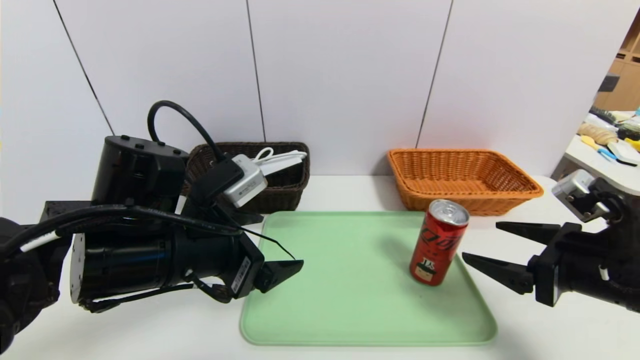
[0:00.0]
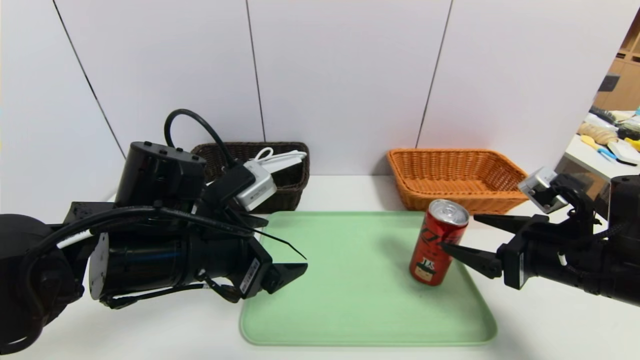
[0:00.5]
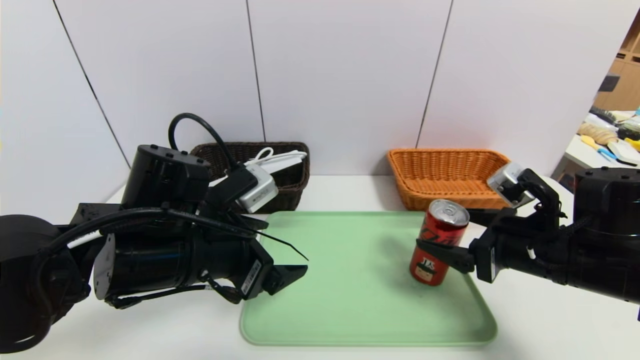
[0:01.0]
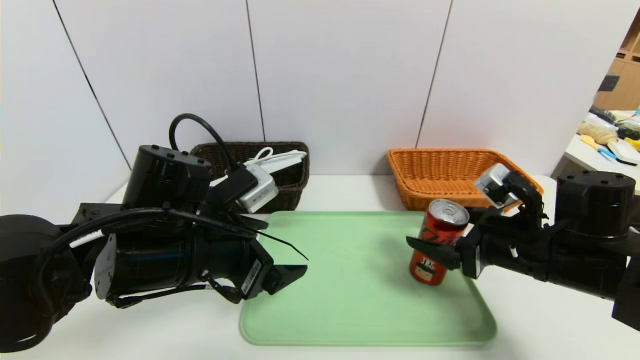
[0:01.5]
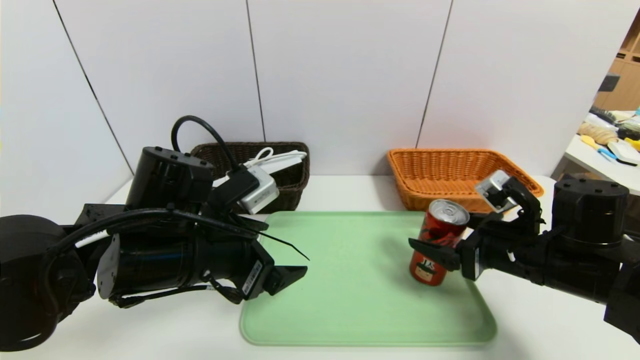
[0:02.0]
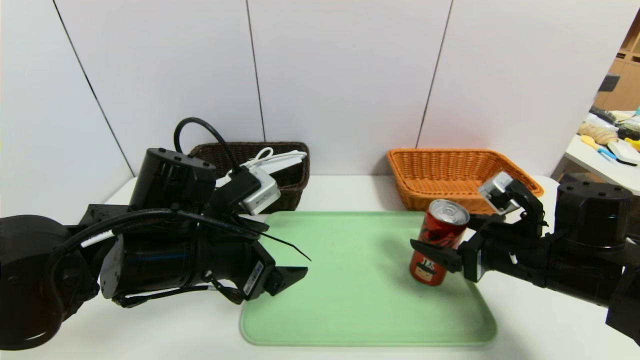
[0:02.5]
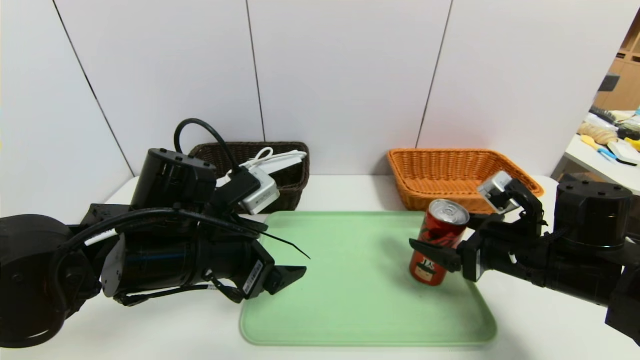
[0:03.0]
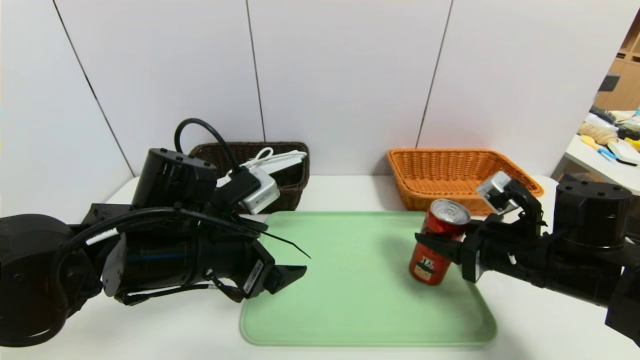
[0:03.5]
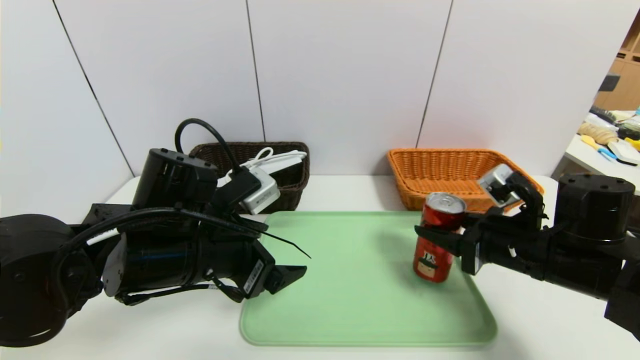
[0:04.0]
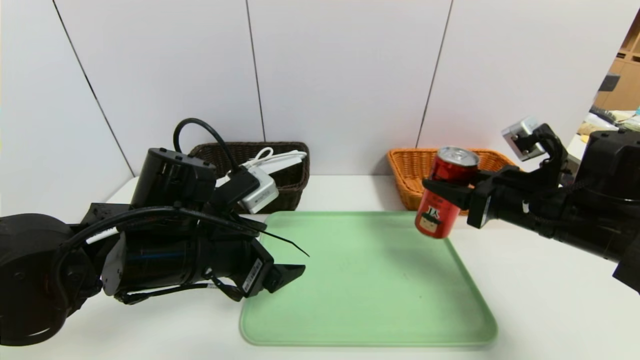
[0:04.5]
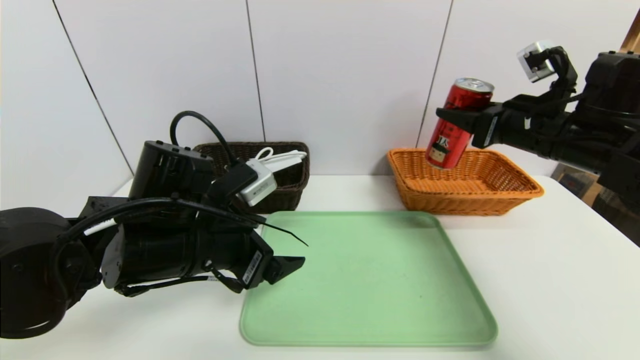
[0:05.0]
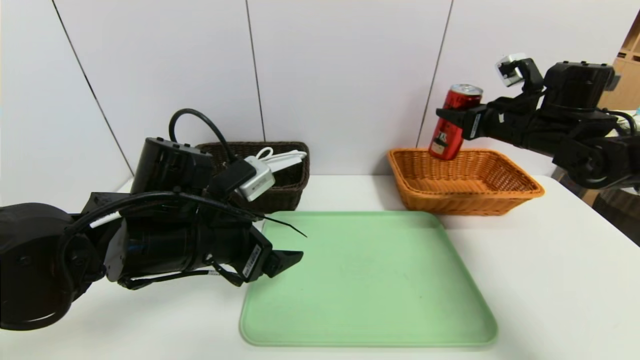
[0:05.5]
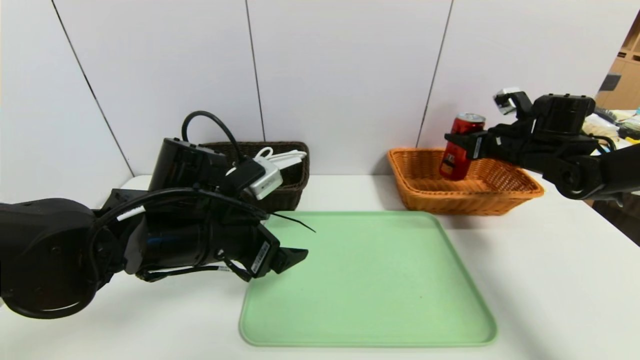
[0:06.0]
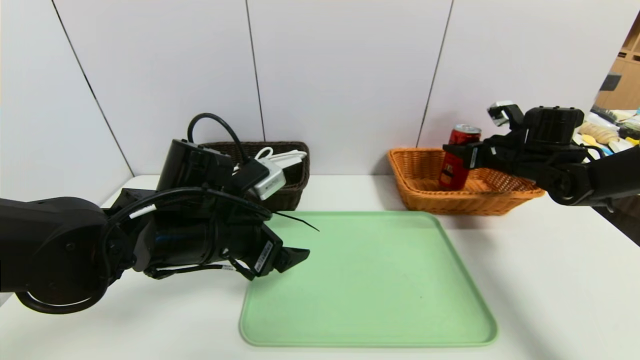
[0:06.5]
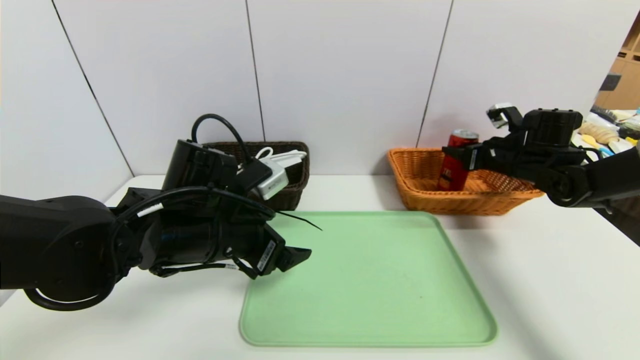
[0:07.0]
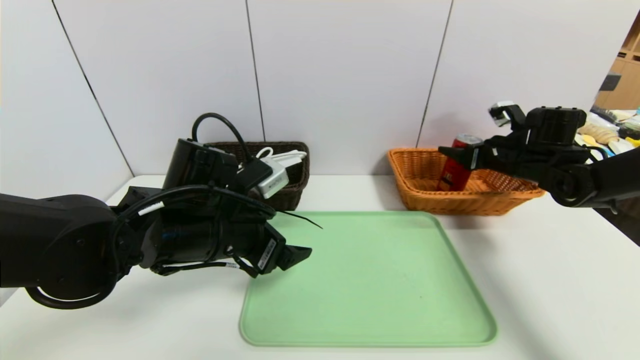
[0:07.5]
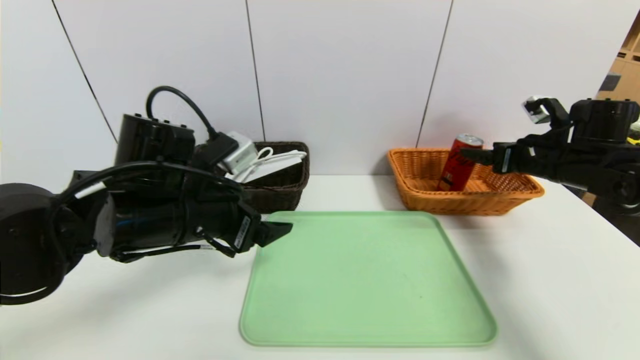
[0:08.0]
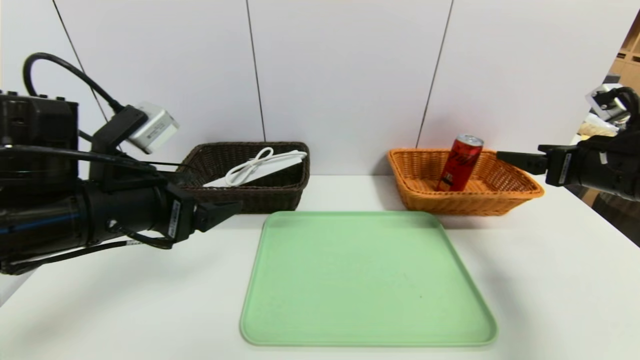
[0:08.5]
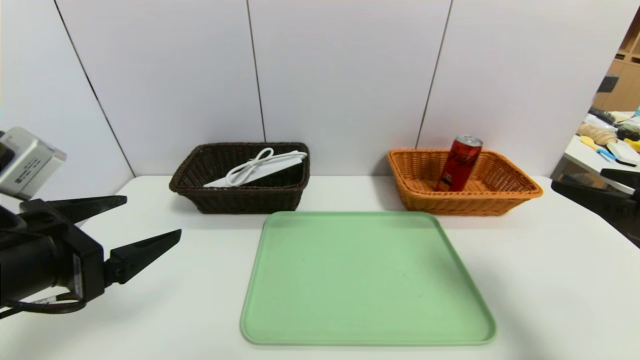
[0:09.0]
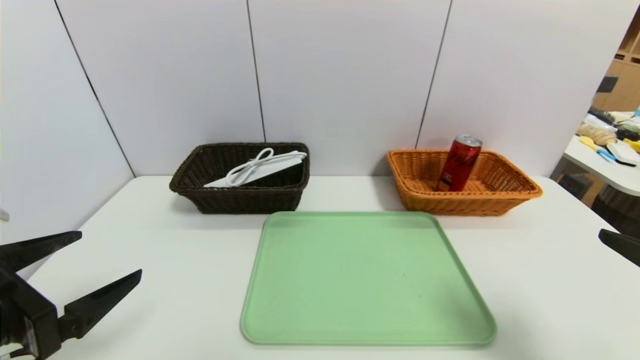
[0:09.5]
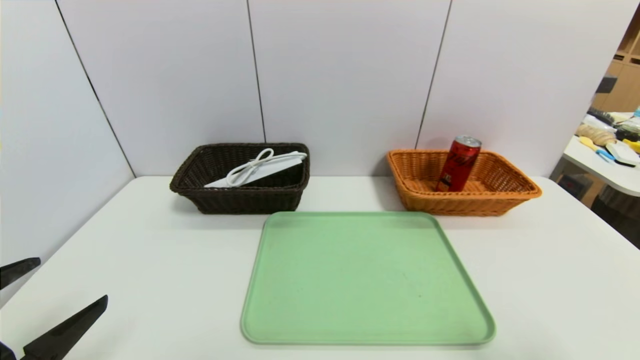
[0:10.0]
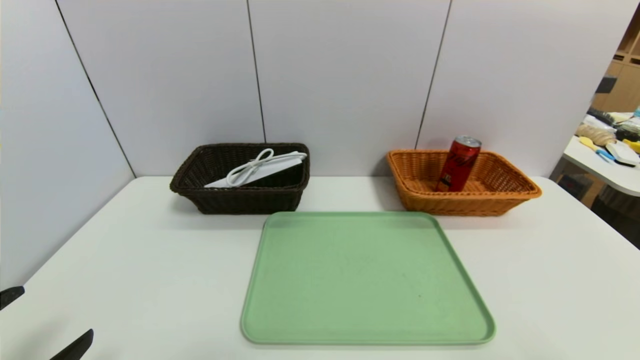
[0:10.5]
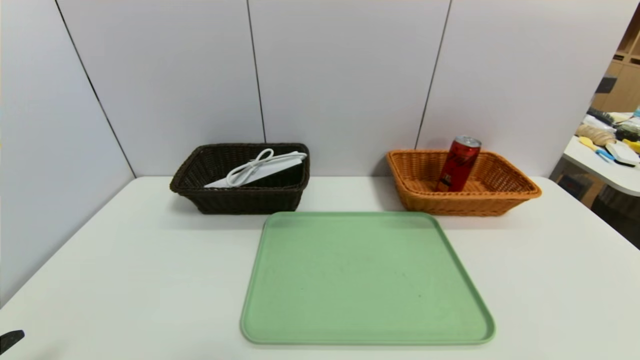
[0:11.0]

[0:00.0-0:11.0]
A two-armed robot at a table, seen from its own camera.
Task of the whole recording: place the food in the right basket with the right gripper, and place the non food items in the left basket with the left gripper.
Step, 0:00.0 to 0:07.5: Grasp the coke and put it in the right basket.
0:00.0 to 0:02.0: The right gripper heads forward, covering some 5 cm.
0:02.0 to 0:03.5: The right gripper closes its fingers.
0:03.5 to 0:05.5: The right gripper is displaced forward and upward by roughly 20 cm.
0:05.5 to 0:07.5: The right gripper is displaced downward by about 5 cm, and opens its fingers.
0:07.5 to 0:09.0: The right gripper moves backward, about 25 cm. The left gripper heads to the left, backward and upward, covering roughly 20 cm.
0:09.0 to 0:11.0: The right gripper heads backward, covering some 20 cm, while the left gripper heads backward and downward, covering approximately 15 cm.

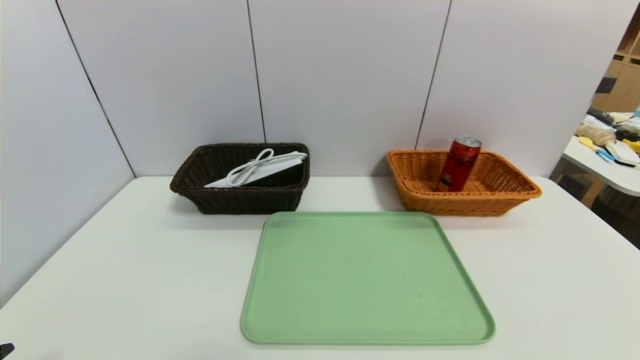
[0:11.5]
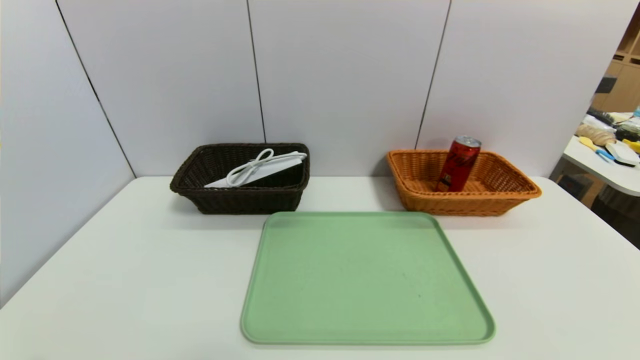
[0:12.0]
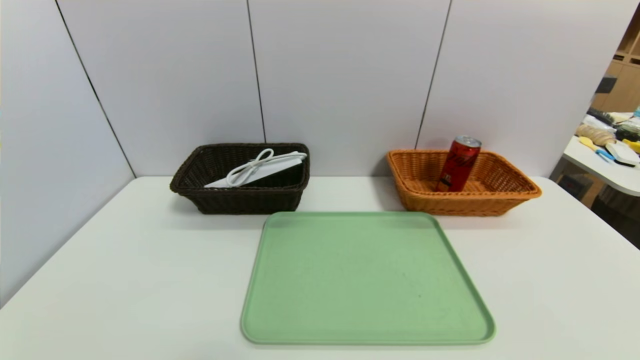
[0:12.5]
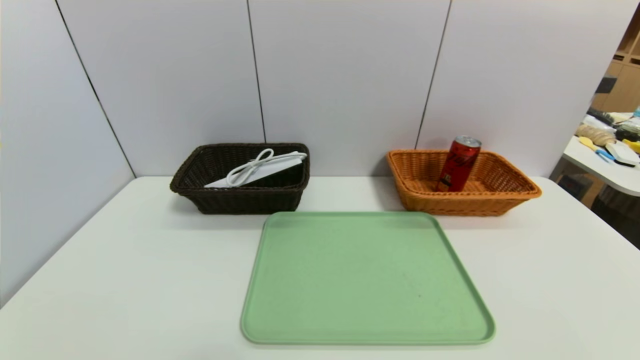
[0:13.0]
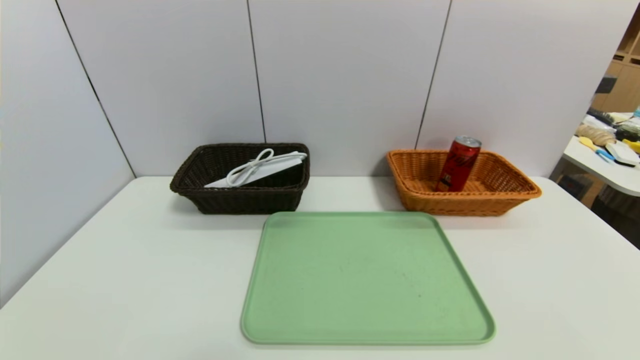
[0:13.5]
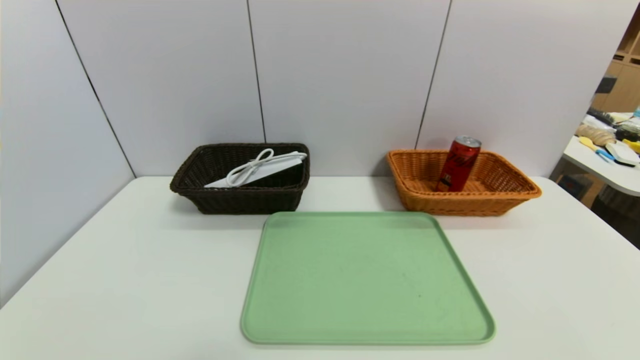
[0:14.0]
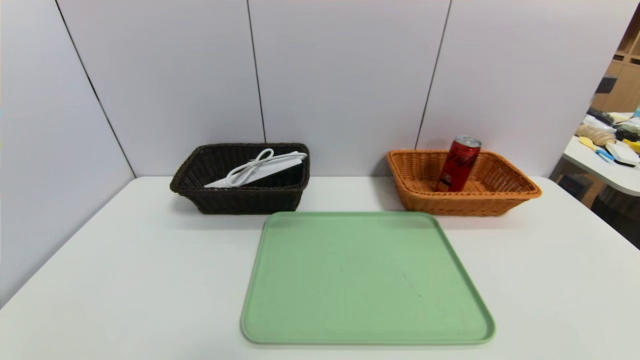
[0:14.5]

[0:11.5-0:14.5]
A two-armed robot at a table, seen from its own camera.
Task of the whole recording: place the food in the right basket with the right gripper, and place the non food items in the left basket with the left gripper.
0:13.0 to 0:14.5: Both grippers stay put.

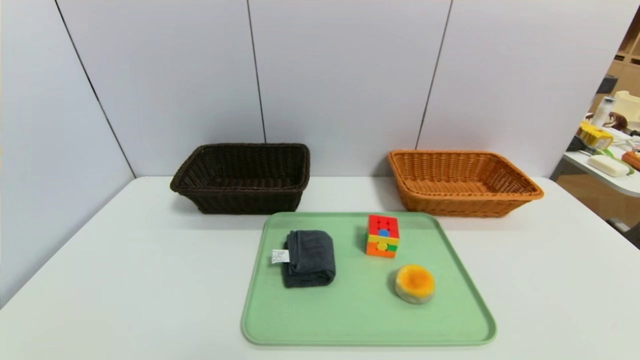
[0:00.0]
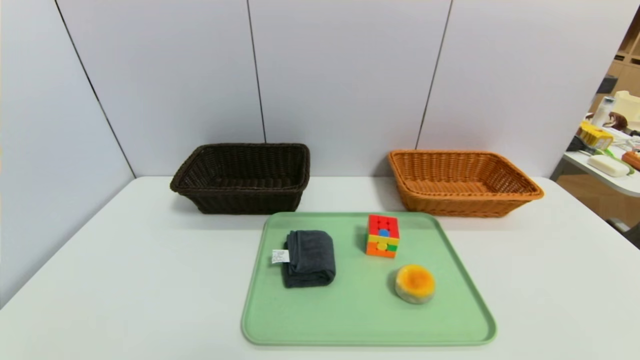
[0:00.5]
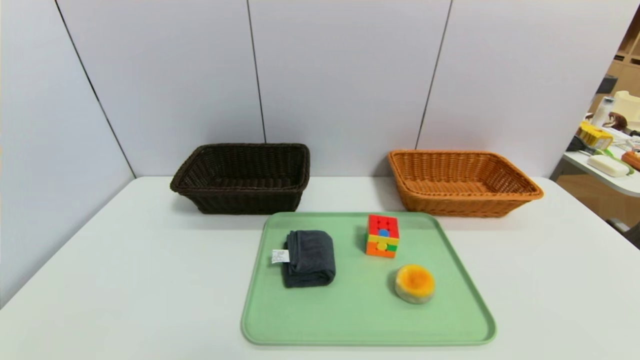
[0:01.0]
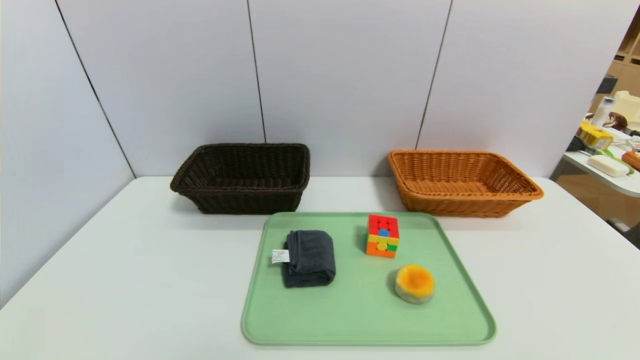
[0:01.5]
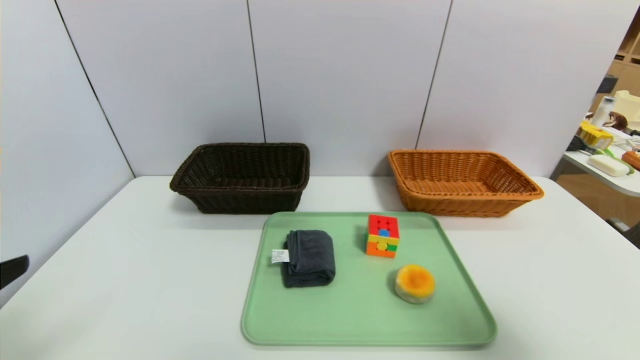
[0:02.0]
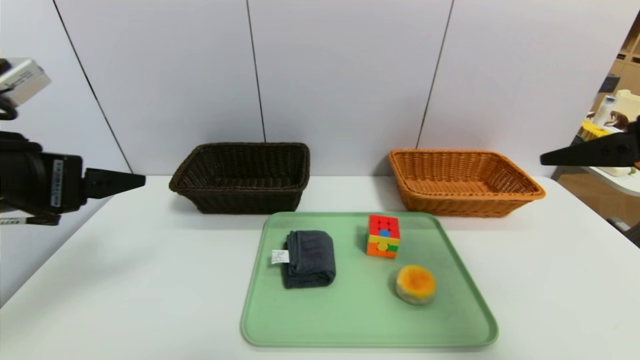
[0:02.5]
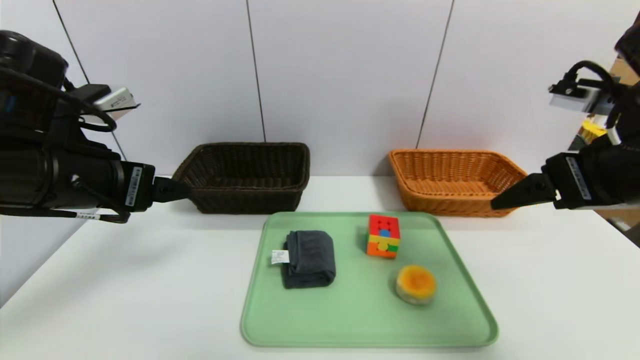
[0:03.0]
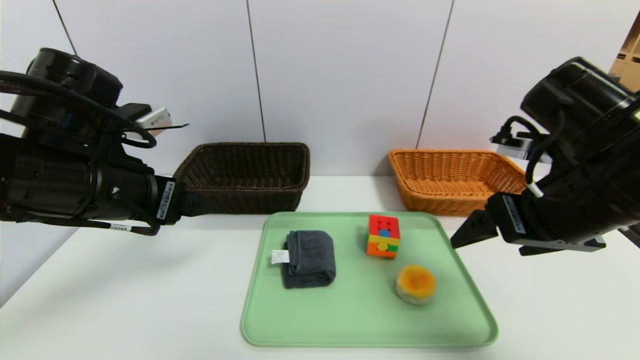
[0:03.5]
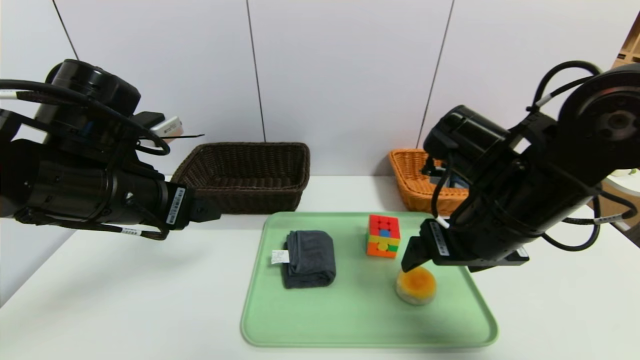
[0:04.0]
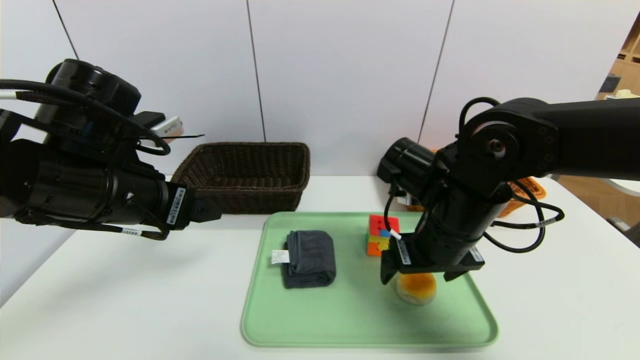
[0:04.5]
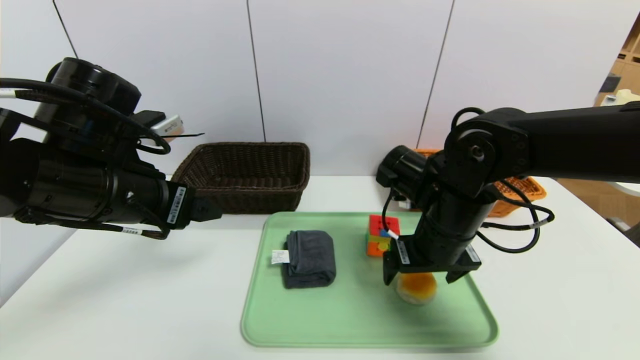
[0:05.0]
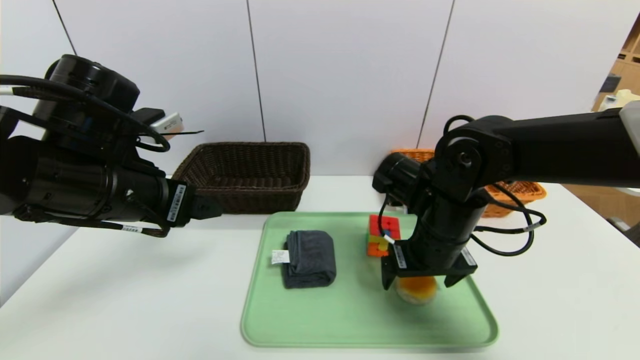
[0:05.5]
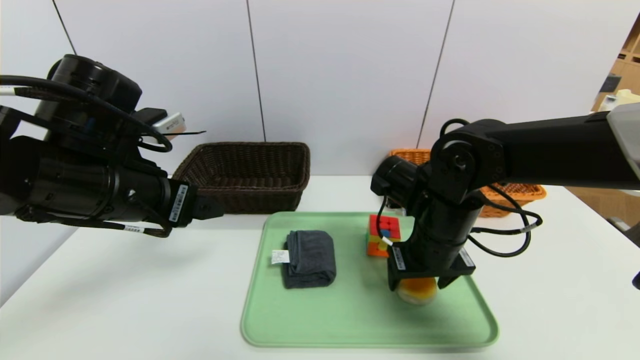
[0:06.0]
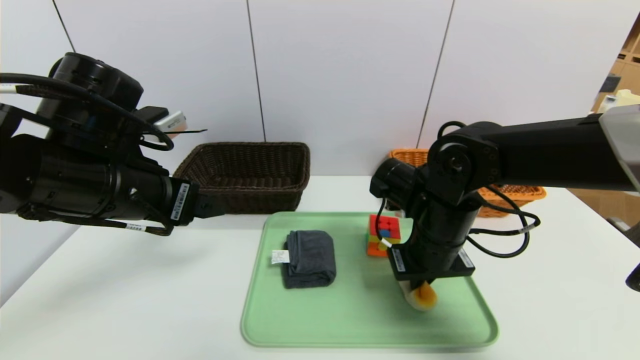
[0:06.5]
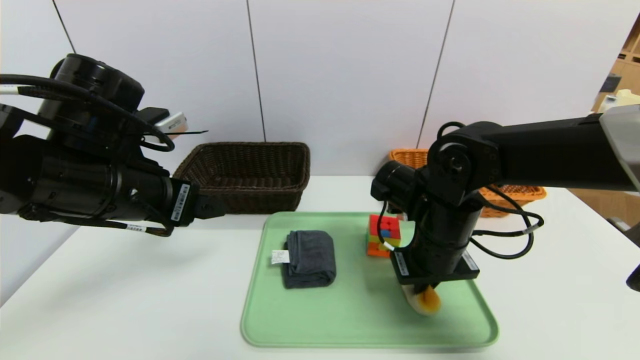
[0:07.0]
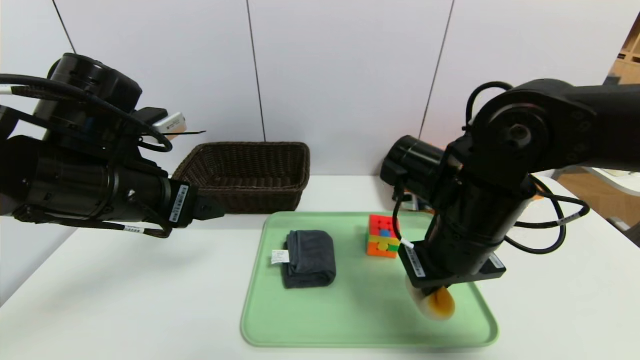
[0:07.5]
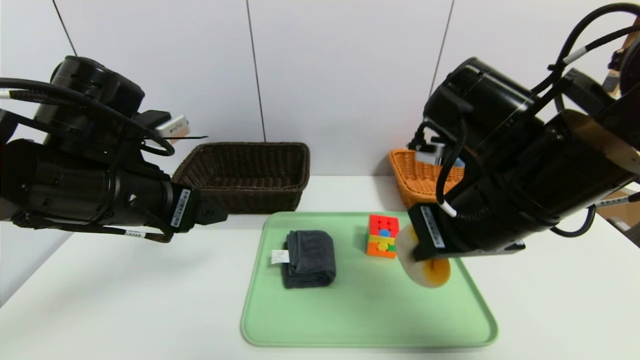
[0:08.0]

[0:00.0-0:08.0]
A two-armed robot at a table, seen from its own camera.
Task of the whole recording: place the food in the right basket with the right gripper, and place the non food items in the left basket with the left gripper.
0:00.0 to 0:02.0: The two grippers go roughly 20 cm upward.
0:02.0 to 0:04.0: The left gripper heads forward and to the right, covering approximately 20 cm. The right gripper is displaced forward, to the left and downward by some 25 cm.
0:04.0 to 0:06.0: The right gripper is displaced downward and forward by about 10 cm.
0:06.0 to 0:08.0: The right gripper goes some 15 cm upward and backward, and closes up.
